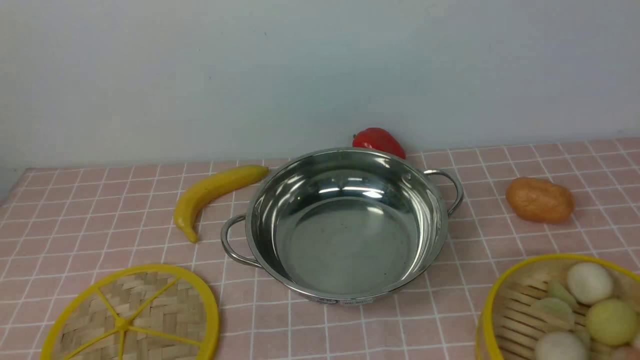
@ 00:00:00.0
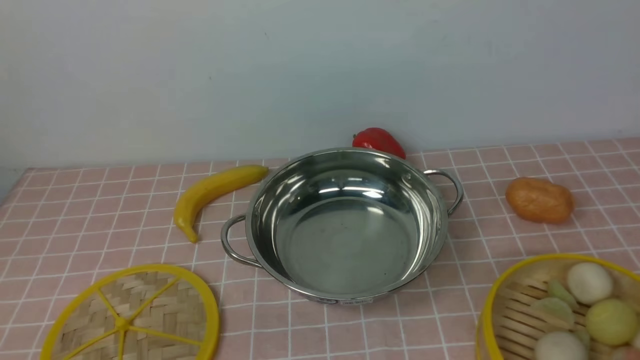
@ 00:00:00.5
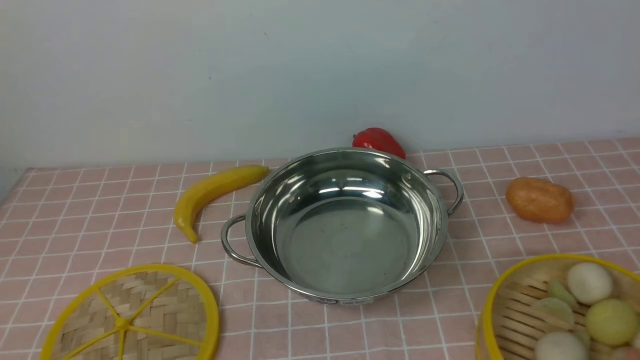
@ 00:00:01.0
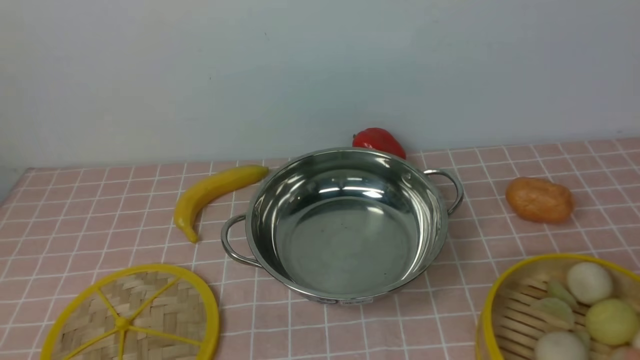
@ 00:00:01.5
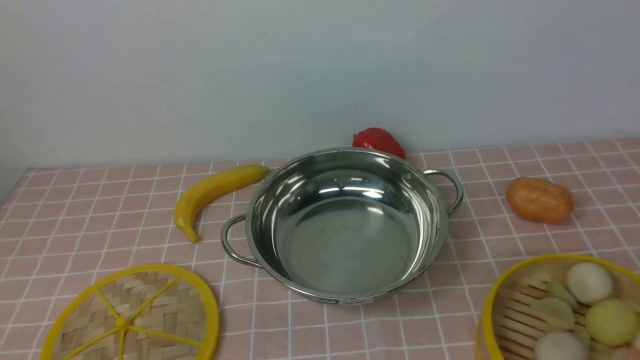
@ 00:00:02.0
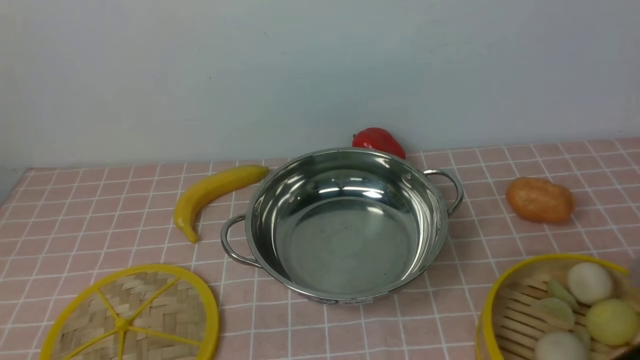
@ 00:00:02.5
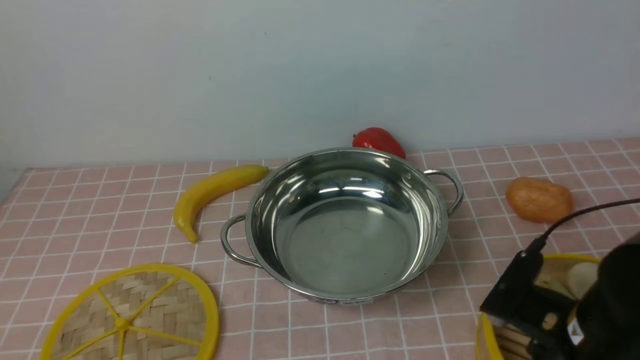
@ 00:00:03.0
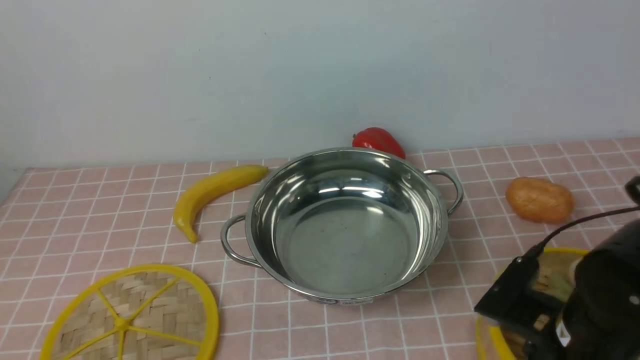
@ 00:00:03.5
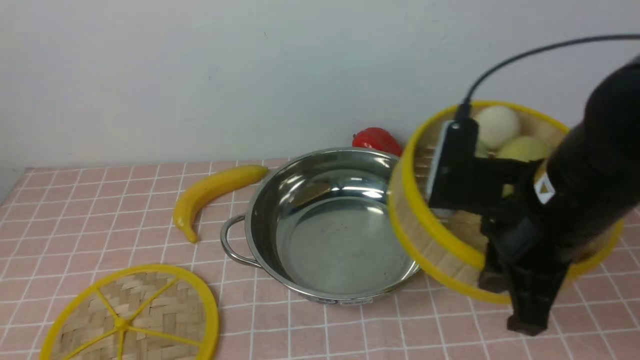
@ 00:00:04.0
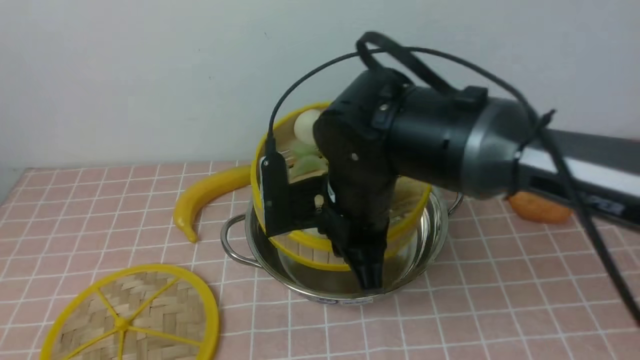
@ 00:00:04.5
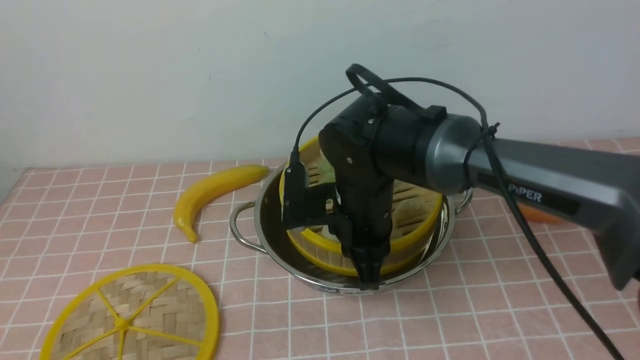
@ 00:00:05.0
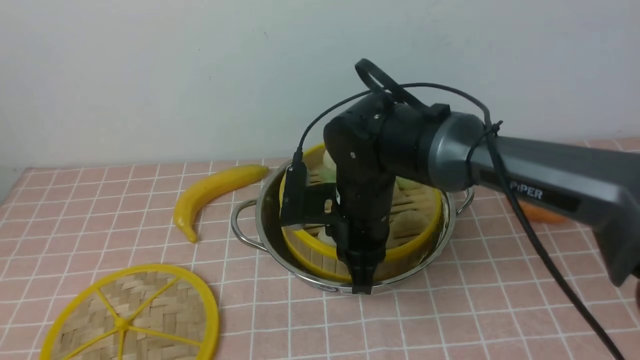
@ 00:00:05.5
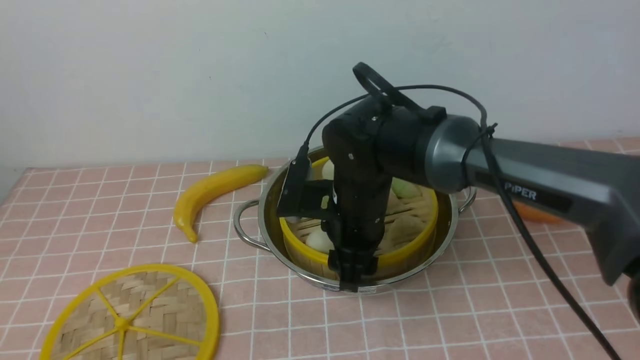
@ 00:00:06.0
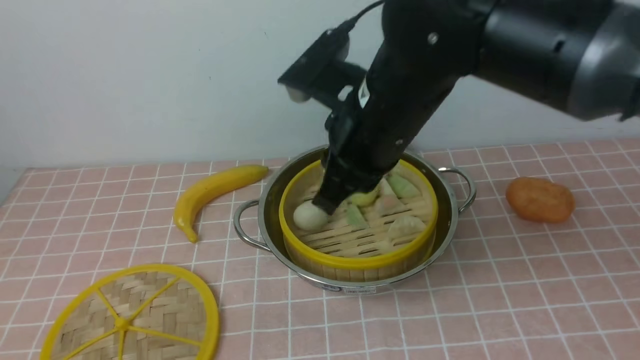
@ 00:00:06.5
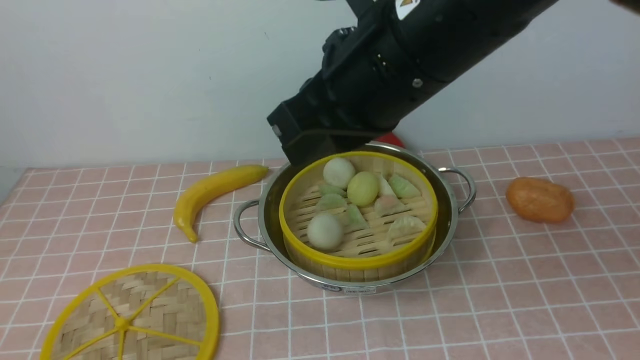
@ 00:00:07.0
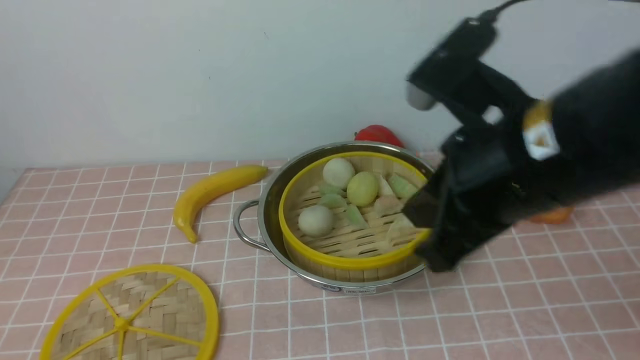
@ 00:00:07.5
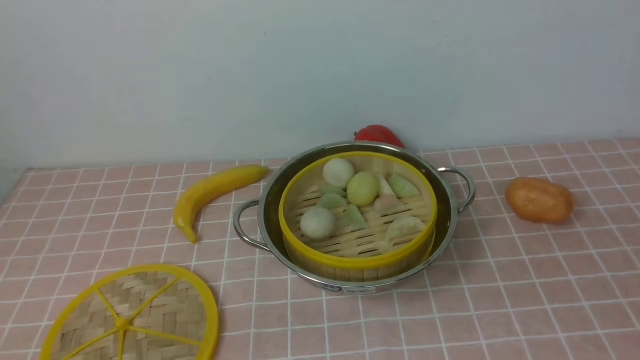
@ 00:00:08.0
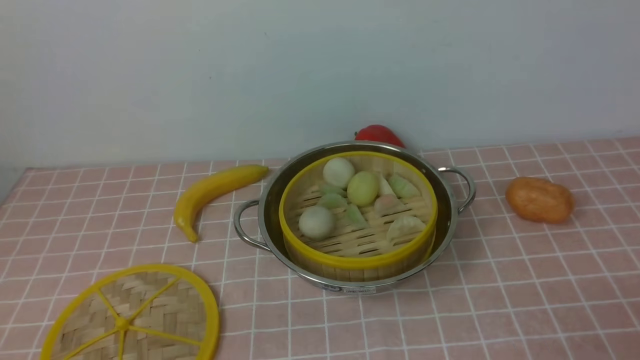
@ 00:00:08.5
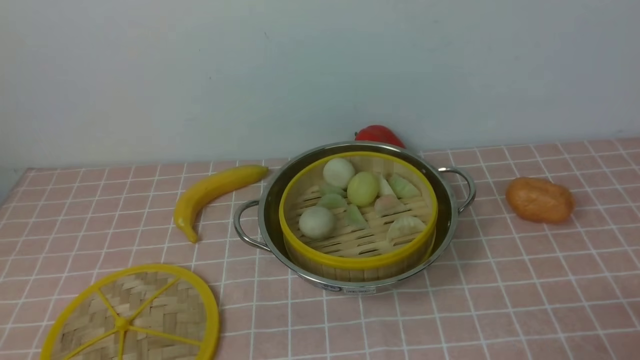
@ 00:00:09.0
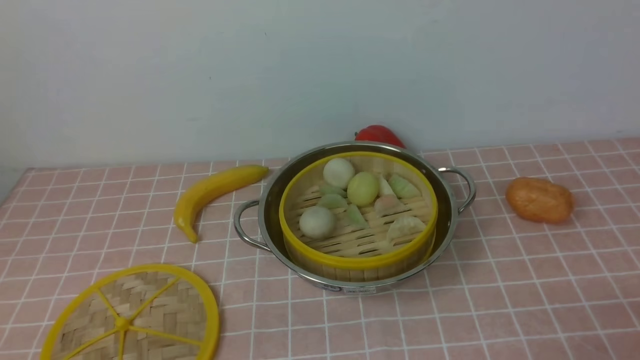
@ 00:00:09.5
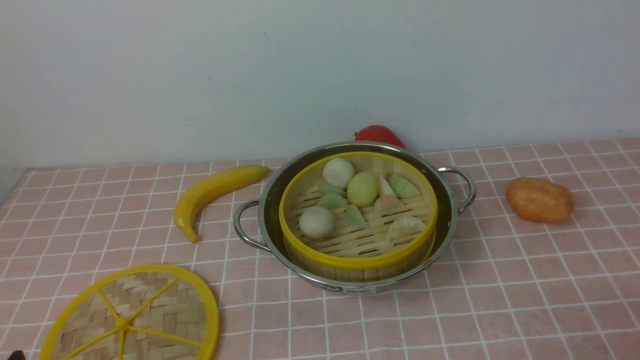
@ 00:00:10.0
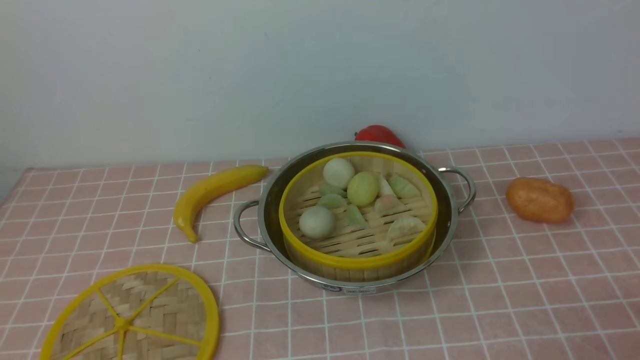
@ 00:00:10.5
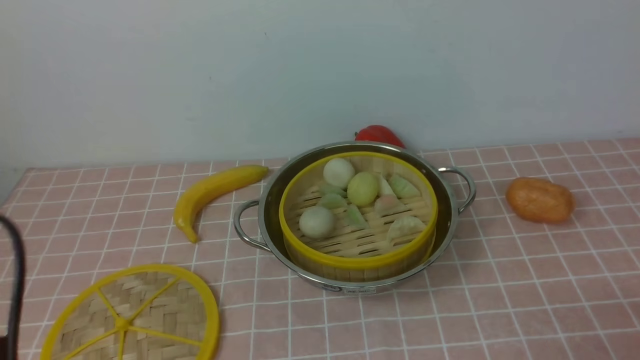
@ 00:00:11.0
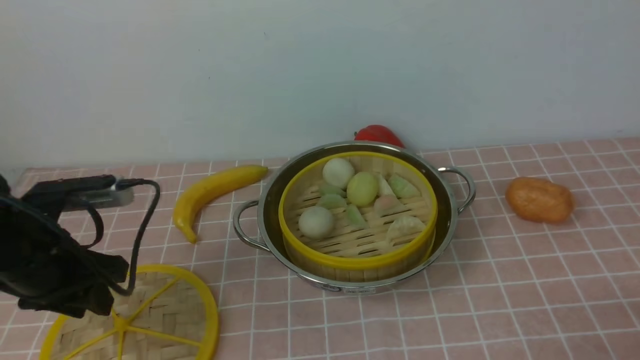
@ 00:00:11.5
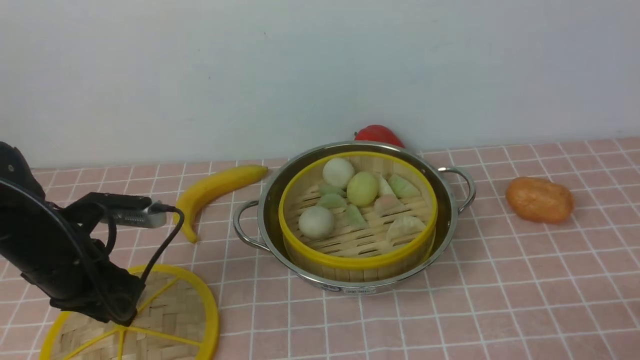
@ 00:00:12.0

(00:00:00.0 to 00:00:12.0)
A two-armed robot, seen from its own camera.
Task of the whole recording: place the steamer in the pot on the pink tablecloth, and put the lid on the steamer.
Step, 00:00:00.0 - 00:00:03.5: use the right arm to lift the steamer closest to it.
Step, 00:00:04.0 - 00:00:06.0: use the right arm to put the steamer into the iron steamer pot in the middle.
00:00:02.0 - 00:00:04.0: The right gripper shifts about 25 cm forward and to the left, and closes its fingers.
00:00:04.0 - 00:00:06.0: The right gripper goes roughly 20 cm to the left, forward and downward, and opens.
00:00:06.0 - 00:00:08.0: The right gripper travels to the right and backward by some 35 cm, and closes.
00:00:10.0 - 00:00:12.0: The left gripper shifts roughly 25 cm forward.

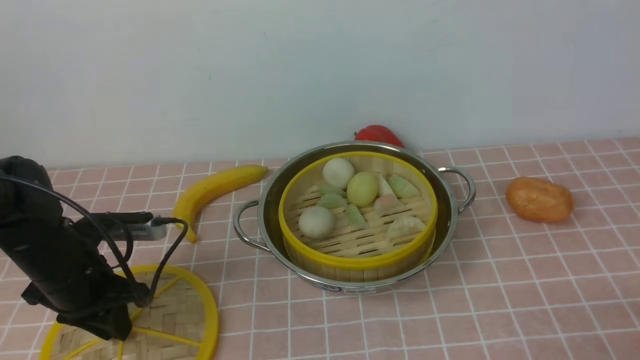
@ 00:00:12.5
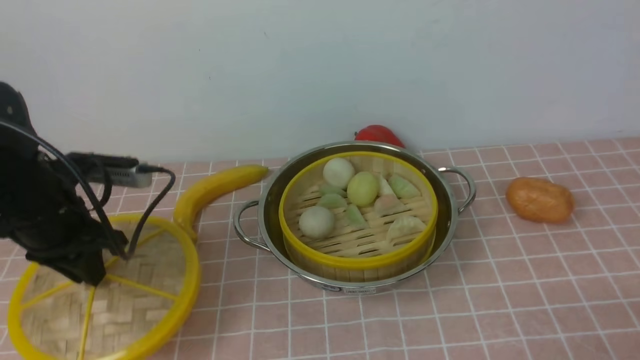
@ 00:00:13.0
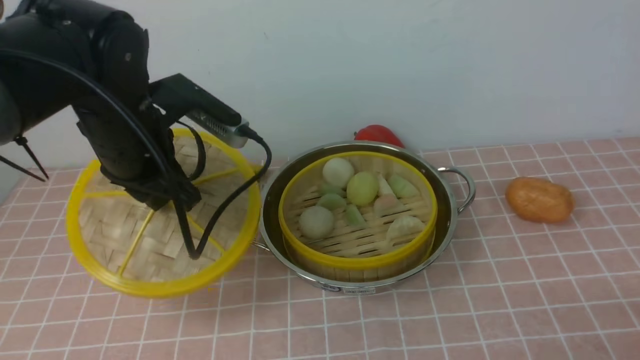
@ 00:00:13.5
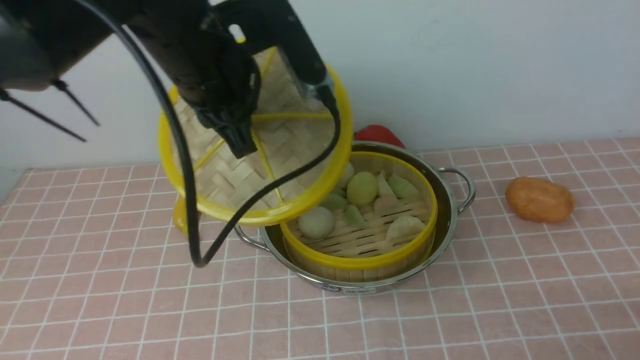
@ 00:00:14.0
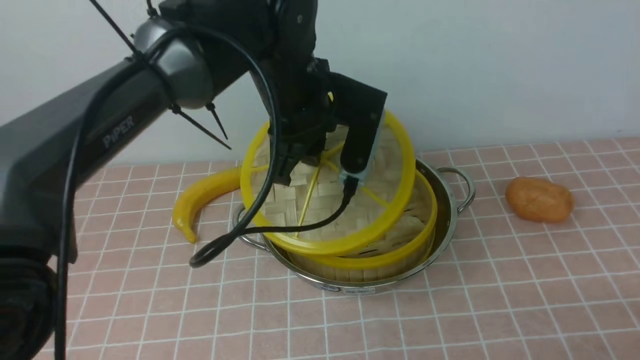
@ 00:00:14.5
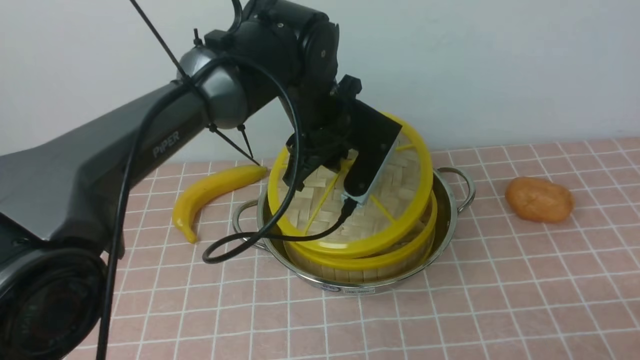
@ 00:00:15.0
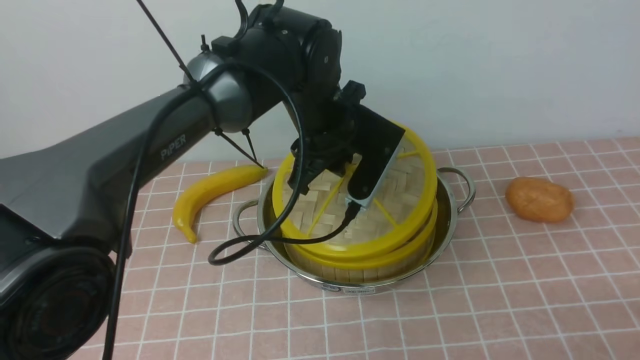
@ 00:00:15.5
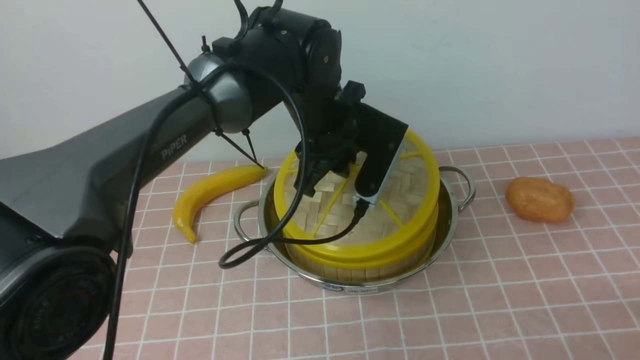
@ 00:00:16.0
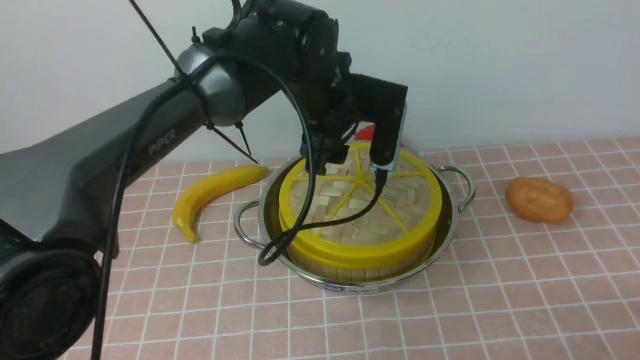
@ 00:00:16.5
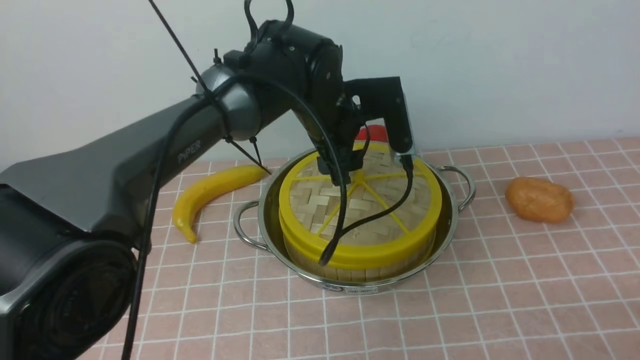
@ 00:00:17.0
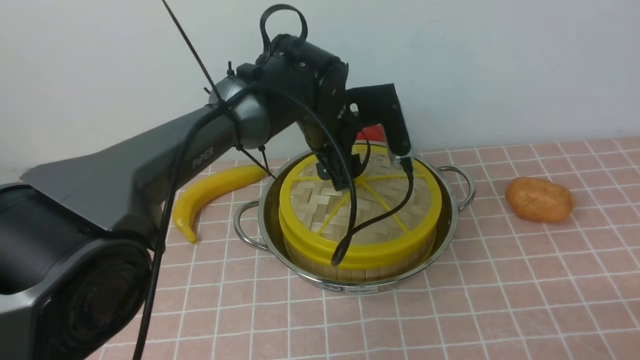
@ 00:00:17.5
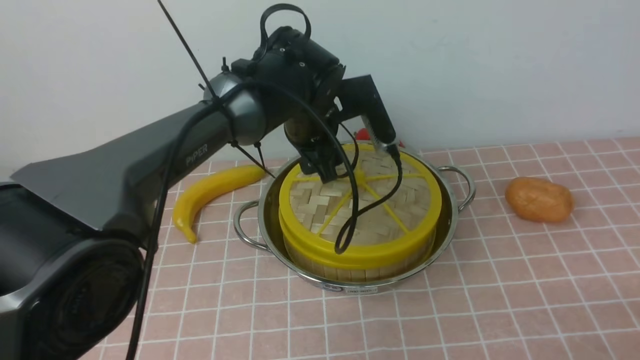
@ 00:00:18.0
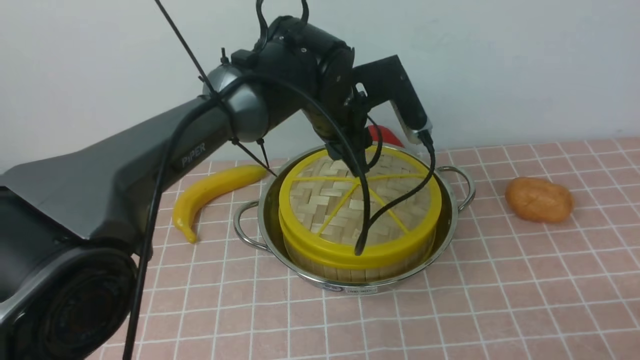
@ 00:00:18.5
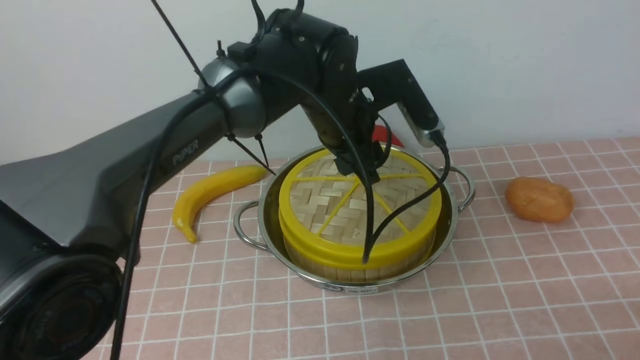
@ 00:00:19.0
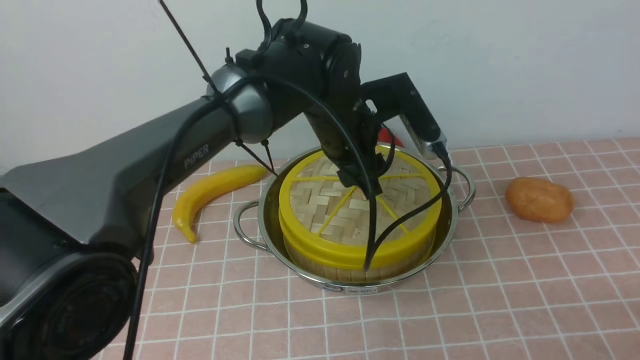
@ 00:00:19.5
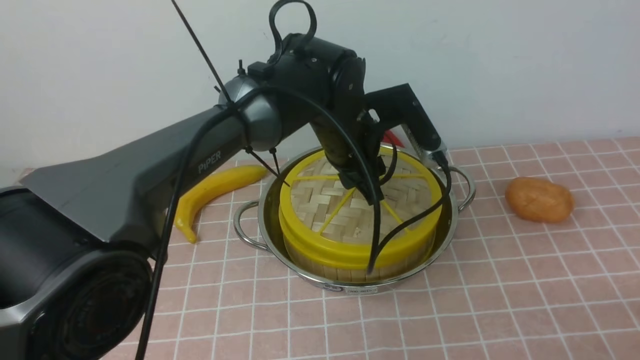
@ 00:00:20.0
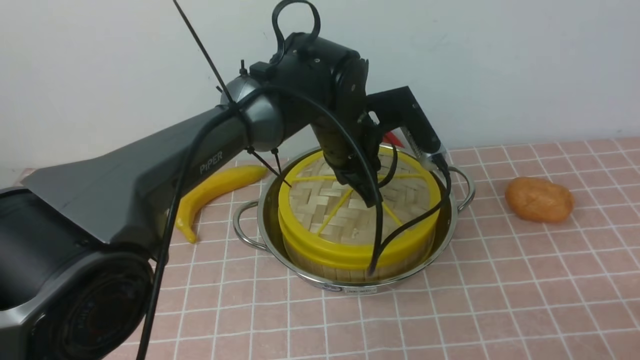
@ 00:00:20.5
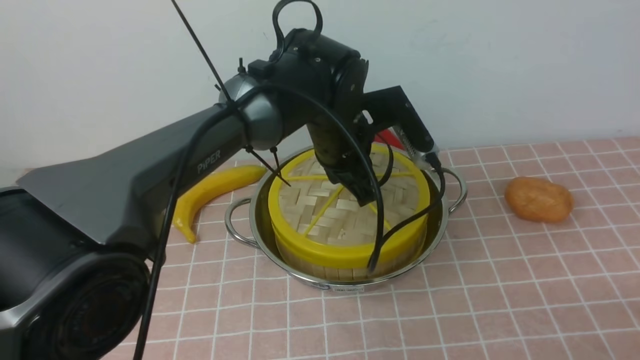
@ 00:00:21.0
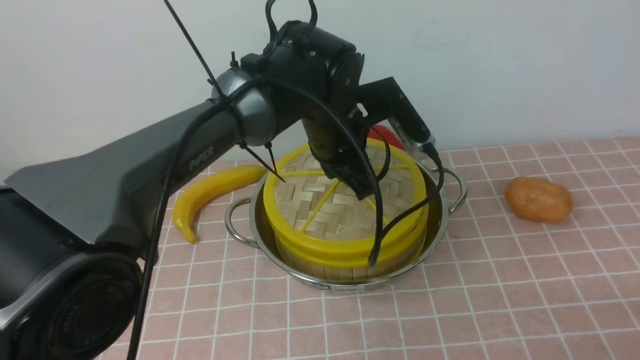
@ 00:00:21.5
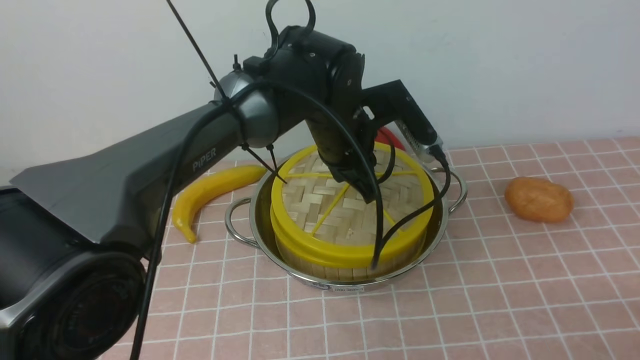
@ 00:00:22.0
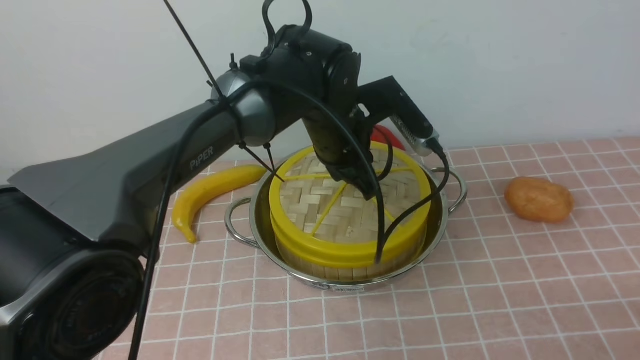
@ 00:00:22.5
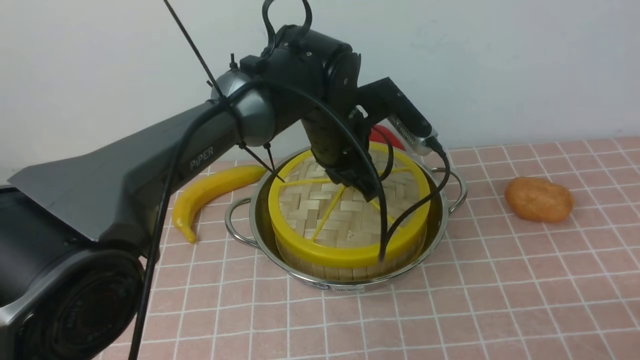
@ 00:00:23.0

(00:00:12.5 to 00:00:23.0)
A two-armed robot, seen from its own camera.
Task of the whole recording: place the steamer in the pot on the pink tablecloth, and put the lid on the steamer.
Step, 00:00:13.0 - 00:00:16.5: use the left arm to place the steamer lid on the steamer.
00:00:12.5 - 00:00:14.5: The left gripper travels to the right and upward by about 30 cm.
00:00:14.5 - 00:00:16.5: The left gripper changes place by roughly 5 cm, and opens.
00:00:19.0 - 00:00:21.0: The left gripper closes.
00:00:21.0 - 00:00:23.0: There are only small adjustments of the grippers.
